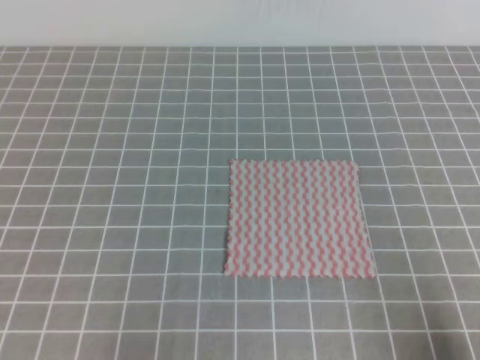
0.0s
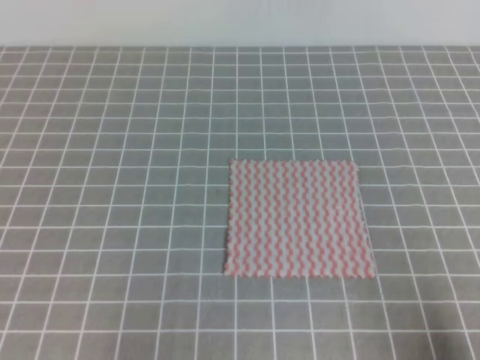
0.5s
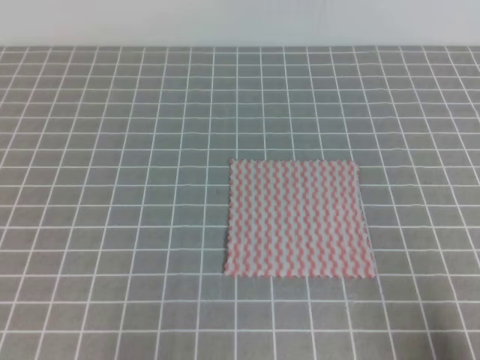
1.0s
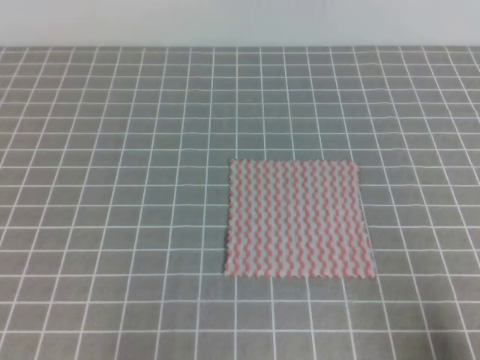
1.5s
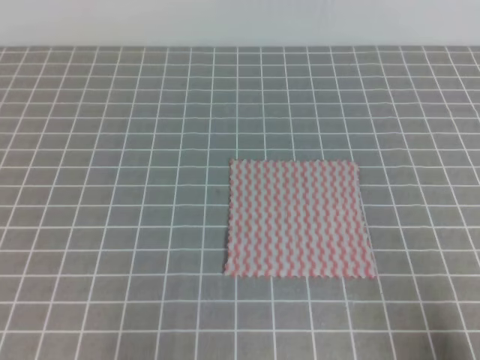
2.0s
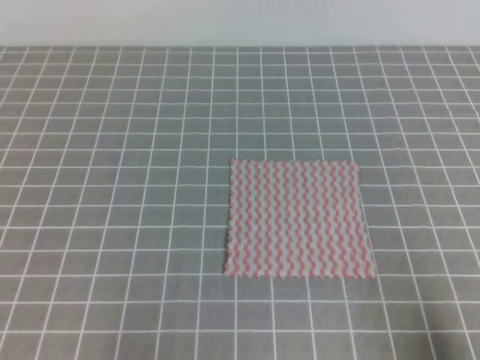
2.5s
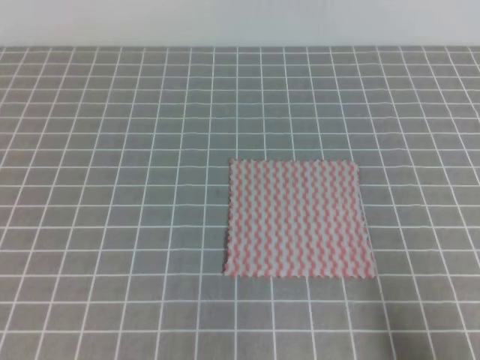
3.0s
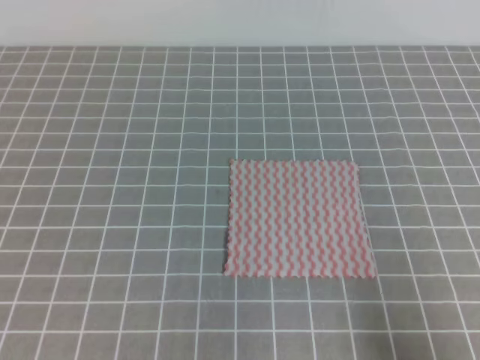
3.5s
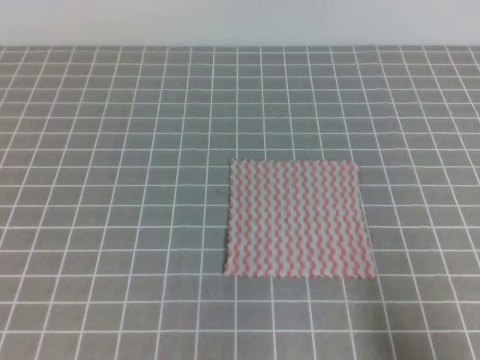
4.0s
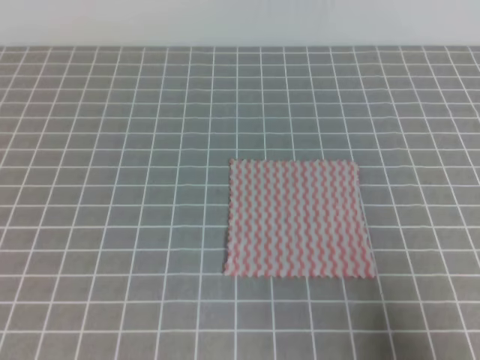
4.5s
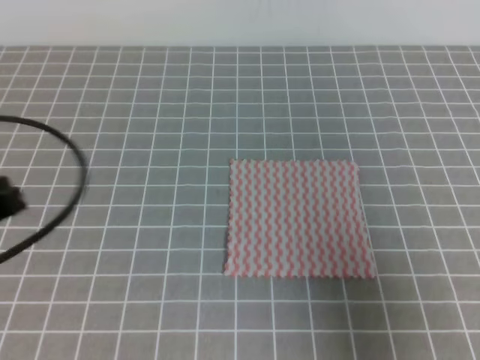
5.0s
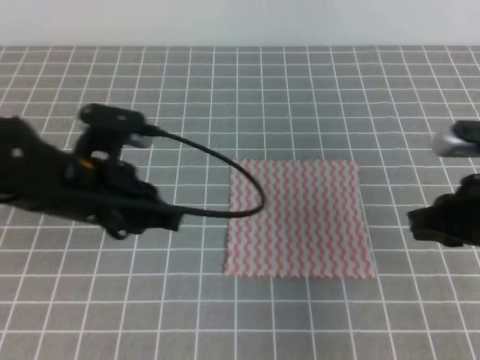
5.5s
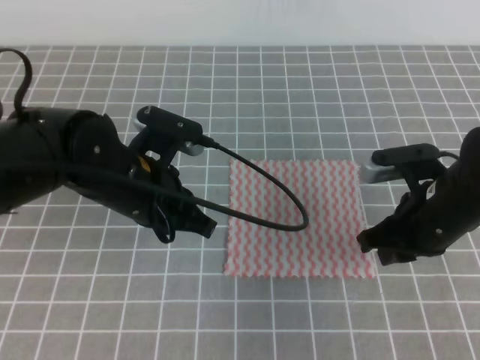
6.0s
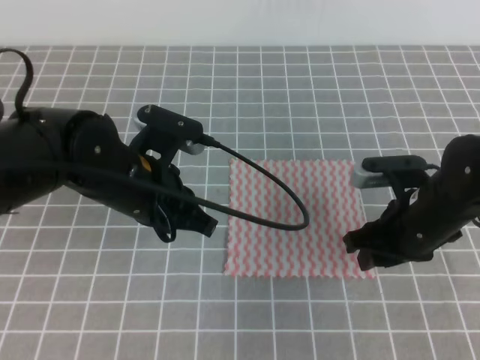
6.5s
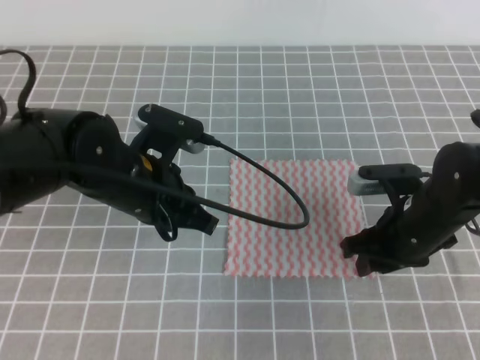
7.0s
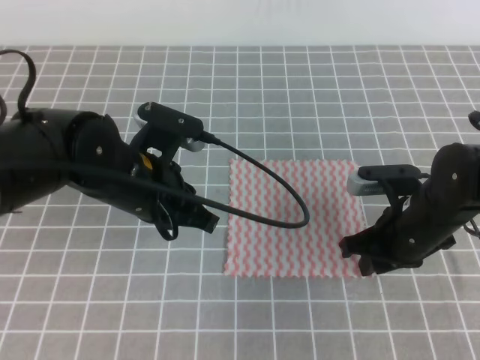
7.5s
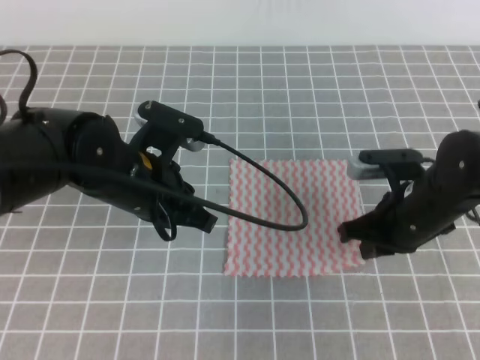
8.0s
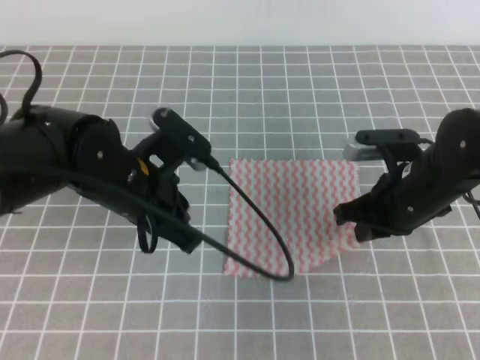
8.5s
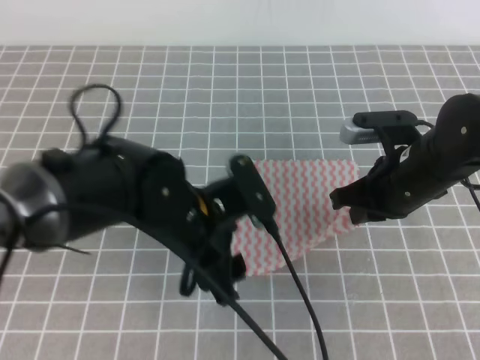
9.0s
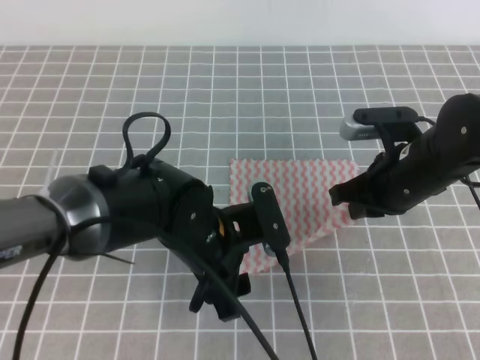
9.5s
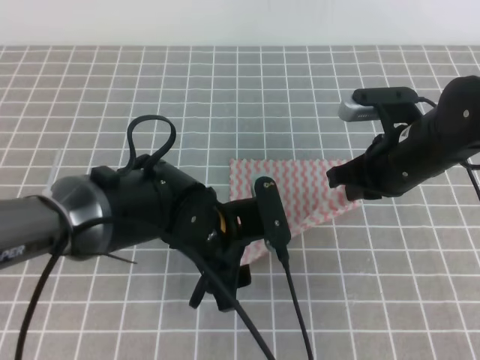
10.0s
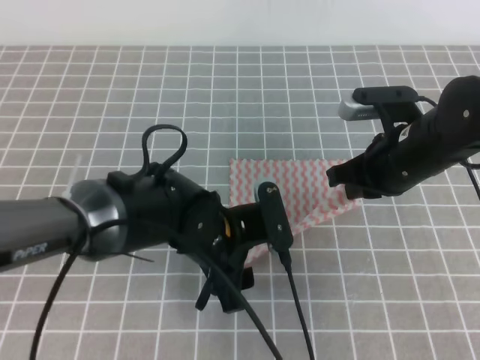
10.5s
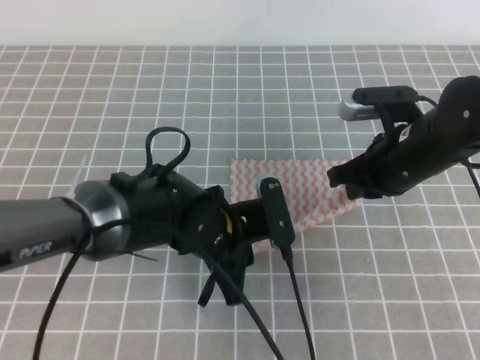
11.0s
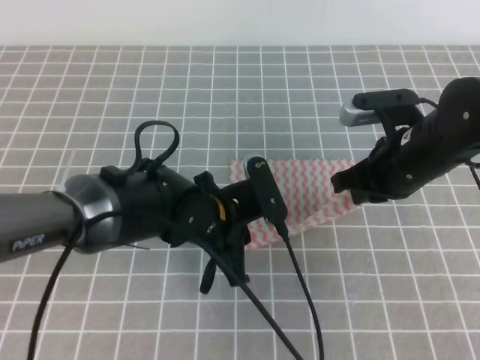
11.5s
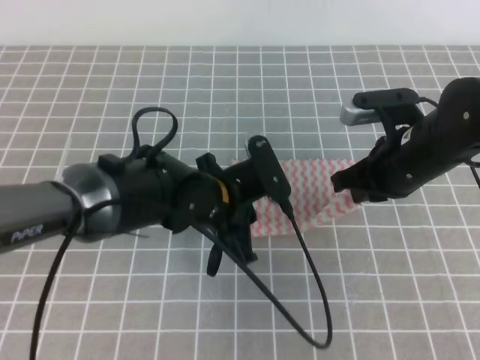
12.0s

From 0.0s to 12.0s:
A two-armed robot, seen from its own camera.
From 0.0s to 2.0s: Neither gripper changes place.
From 4.0s to 6.0s: The left gripper travels forward and to the right by some 30 cm, while the right gripper is displaced forward and to the left by some 25 cm, and opens.
From 6.0s to 8.0s: The right gripper closes.
From 8.0s to 10.0s: The left gripper shifts roughly 10 cm to the right and downward, and opens; the right gripper is displaced upward by some 5 cm.
From 10.0s to 12.0s: The left gripper closes its fingers.

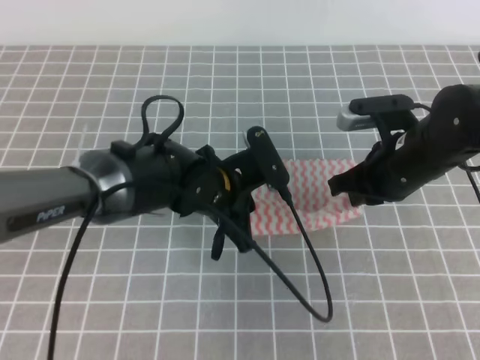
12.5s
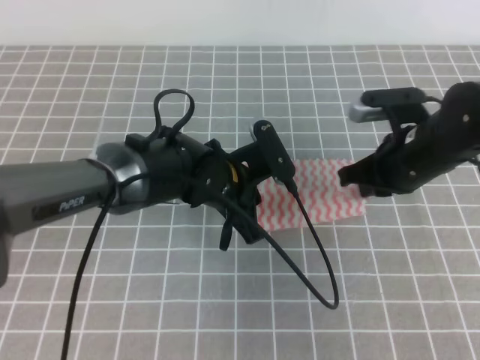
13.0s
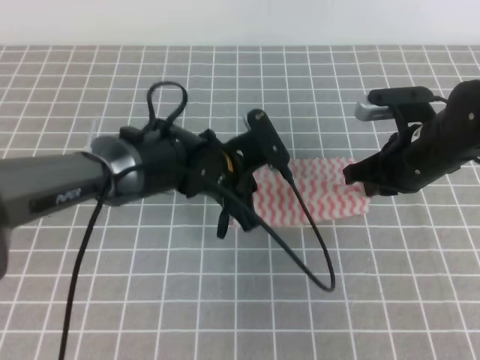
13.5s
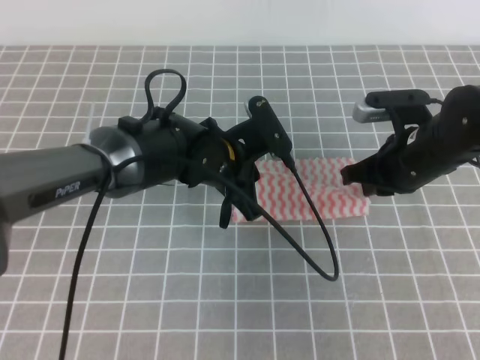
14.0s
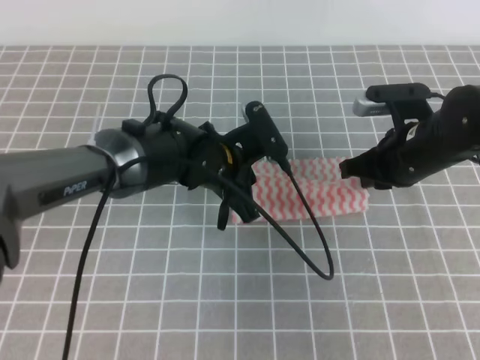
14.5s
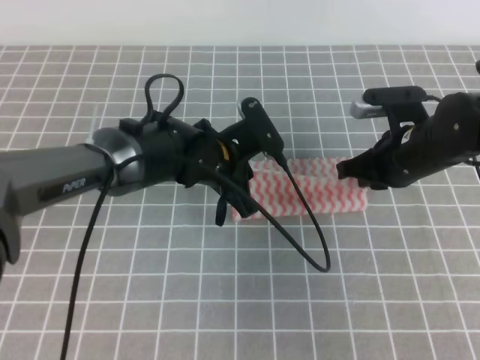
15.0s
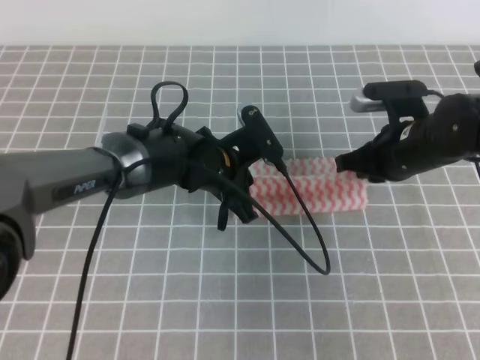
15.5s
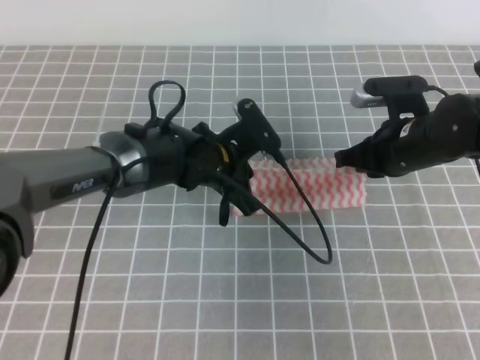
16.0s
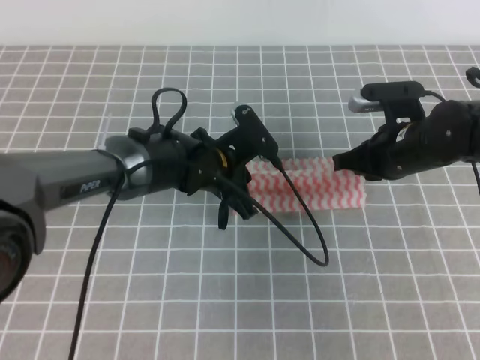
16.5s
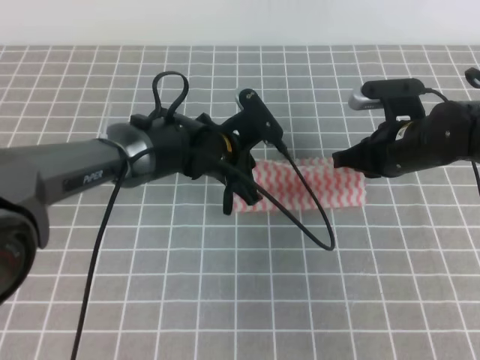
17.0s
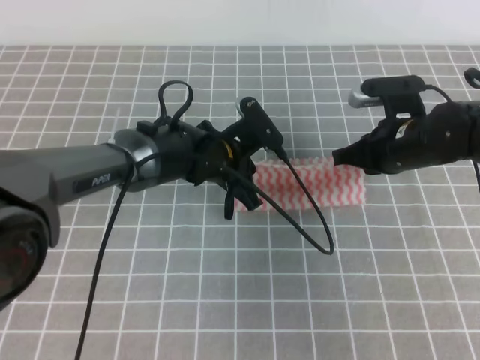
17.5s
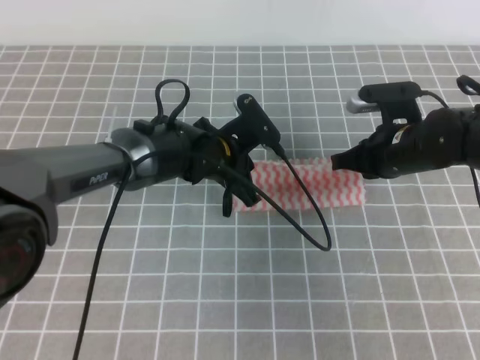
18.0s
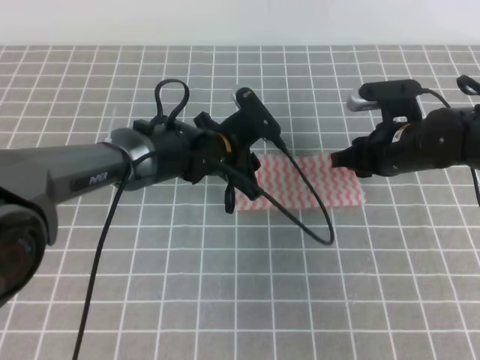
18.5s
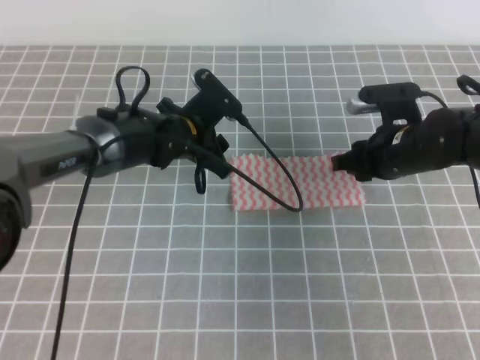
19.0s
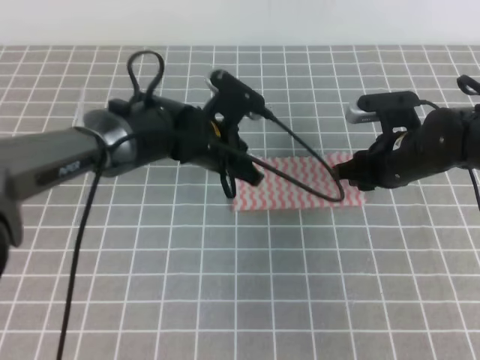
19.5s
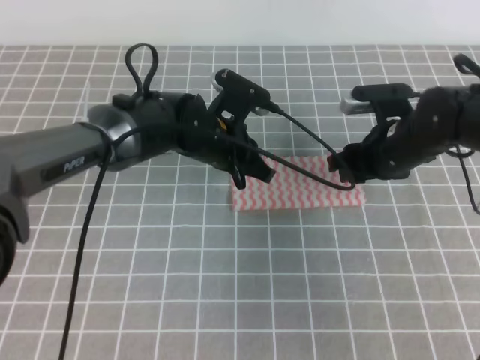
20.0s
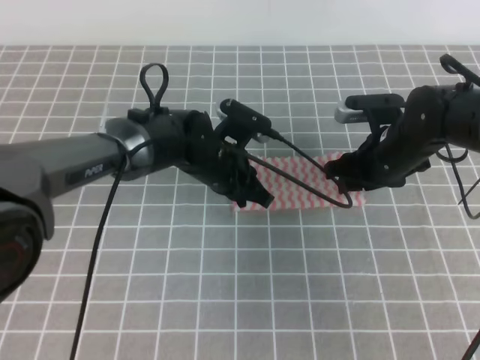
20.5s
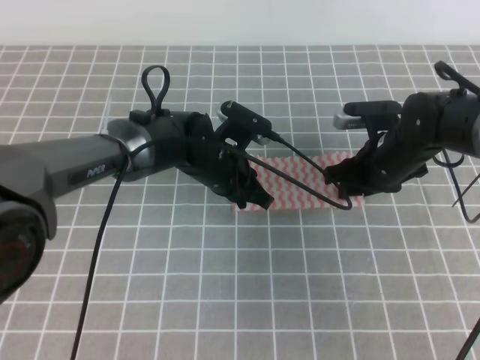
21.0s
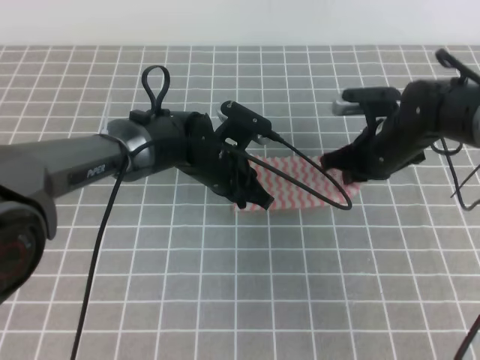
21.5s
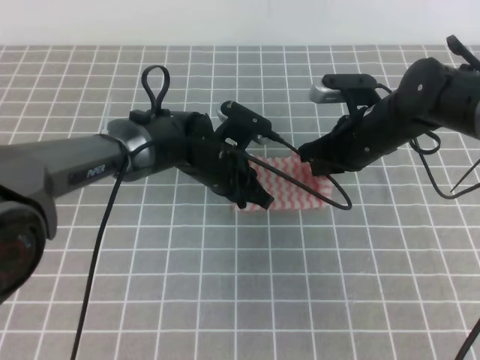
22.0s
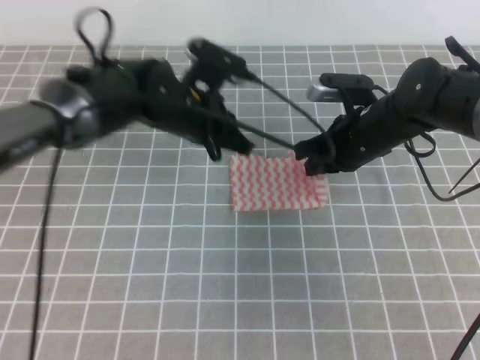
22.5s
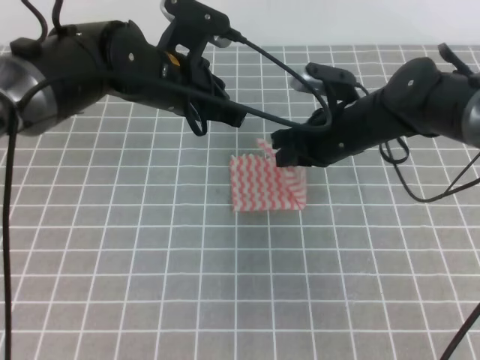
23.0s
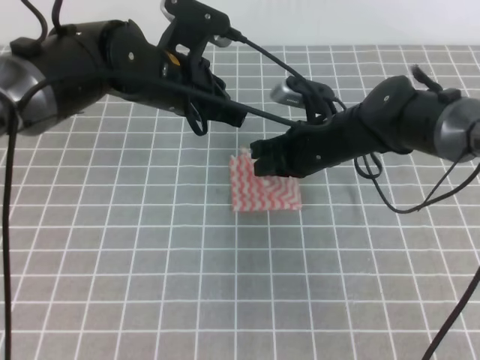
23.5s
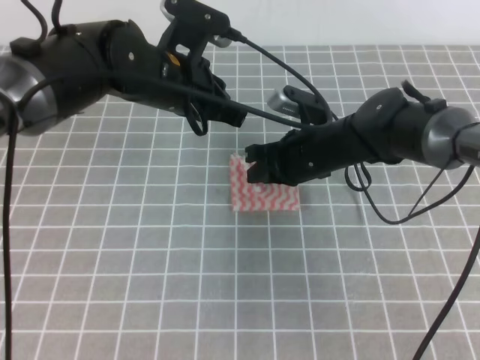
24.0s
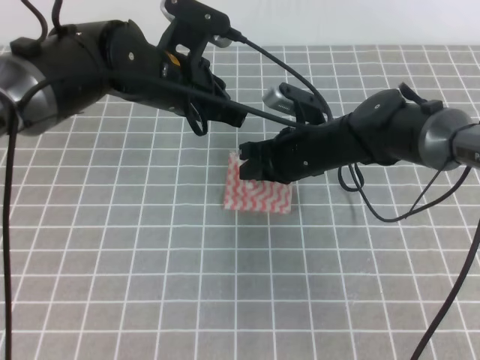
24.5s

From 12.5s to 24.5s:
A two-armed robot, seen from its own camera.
From 12.5s to 14.5s: The grippers move only a little.
From 14.5s to 16.5s: There are only small adjustments of the grippers.
From 16.5s to 18.5s: The left gripper opens up. The right gripper opens its fingers.
From 18.5s to 20.5s: The right gripper opens up. Meanwhile the left gripper closes its fingers.
From 20.5s to 22.5s: The left gripper moves upward, roughly 5 cm; the right gripper closes up.
From 22.5s to 24.5s: The left gripper travels upward by approximately 5 cm, while the right gripper goes some 5 cm to the left.

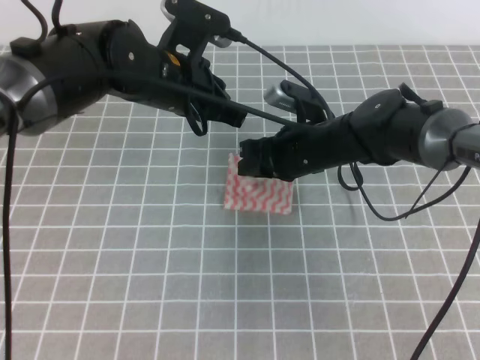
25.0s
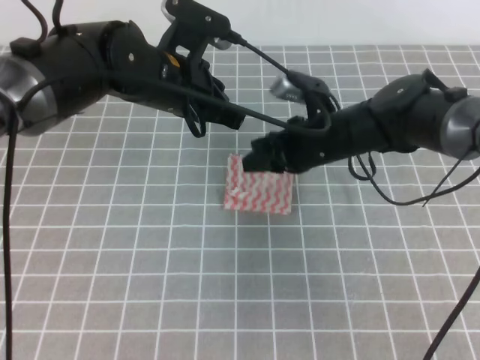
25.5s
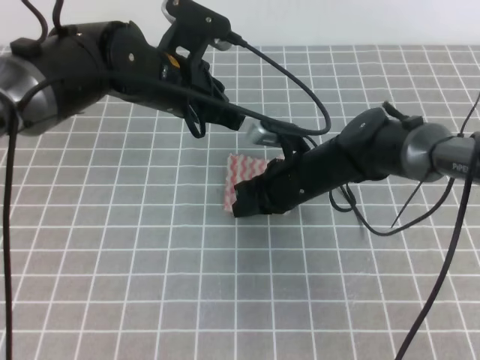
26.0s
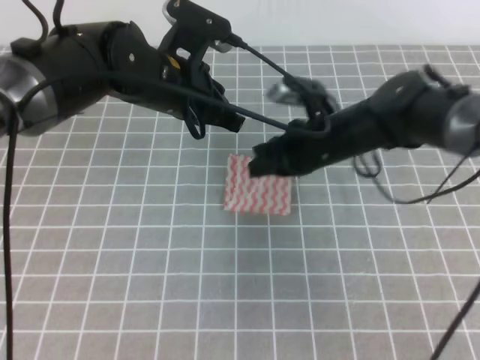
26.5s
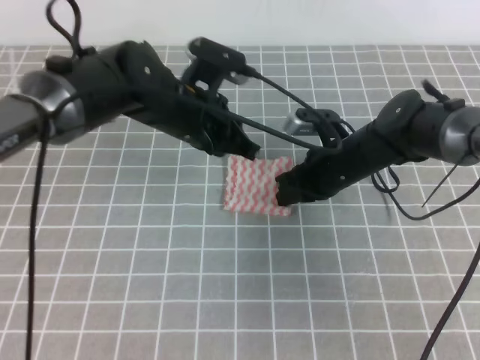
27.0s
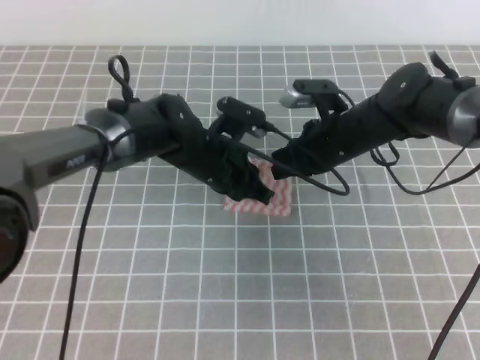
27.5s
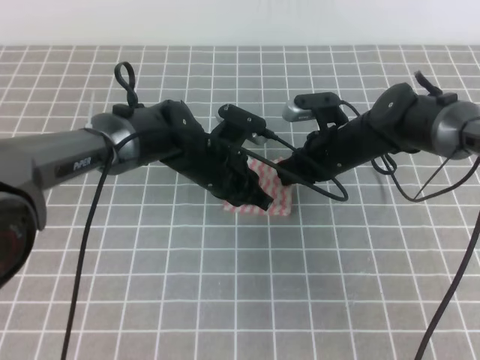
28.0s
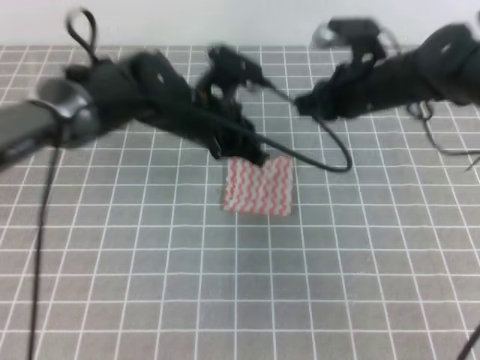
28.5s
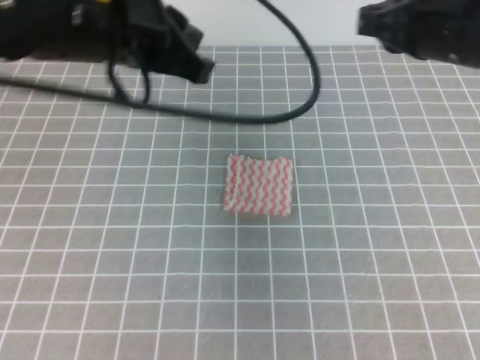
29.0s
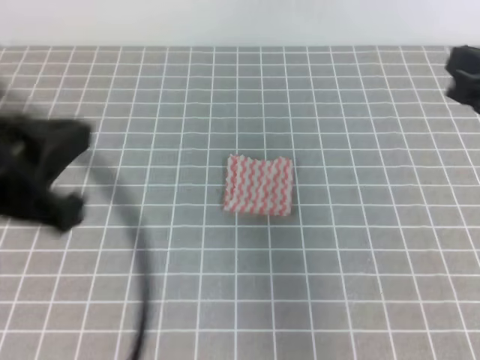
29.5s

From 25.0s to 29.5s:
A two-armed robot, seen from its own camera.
From 25.0s to 27.0s: The right gripper closes its fingers.
From 27.0s to 29.5s: The right gripper moves upward, backward and to the right, approximately 30 cm; the left gripper goes approximately 30 cm backward, to the left and upward.
